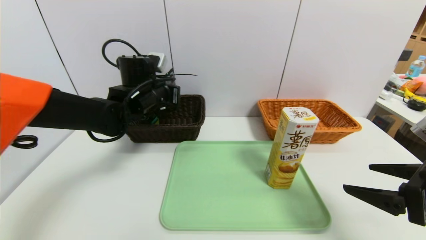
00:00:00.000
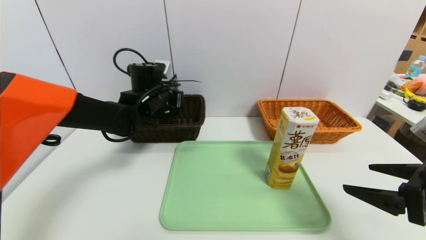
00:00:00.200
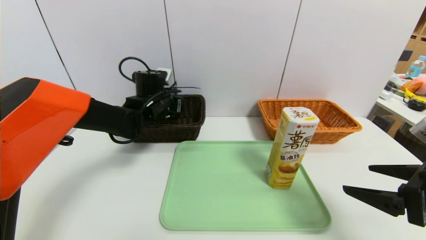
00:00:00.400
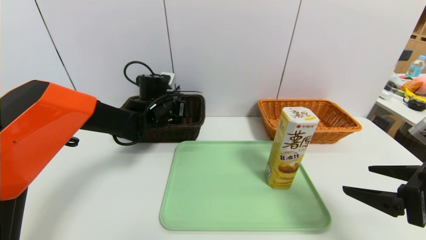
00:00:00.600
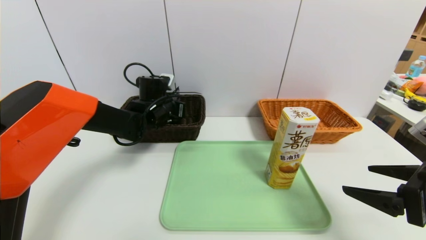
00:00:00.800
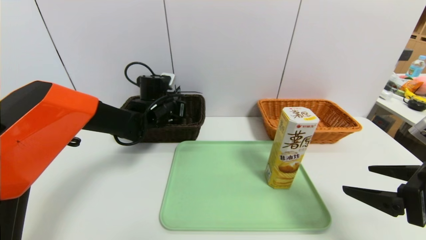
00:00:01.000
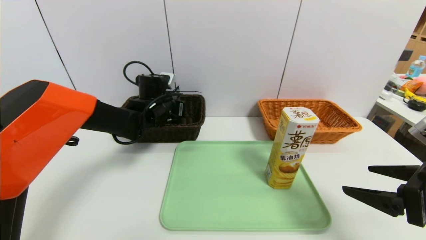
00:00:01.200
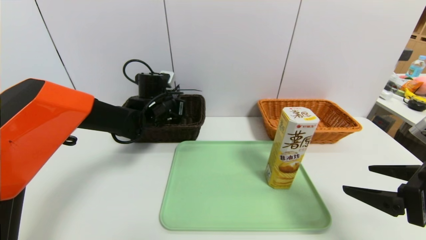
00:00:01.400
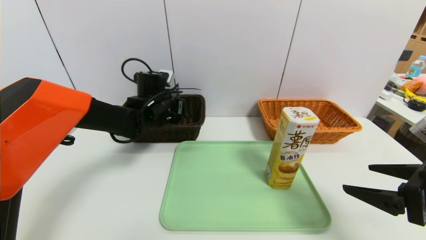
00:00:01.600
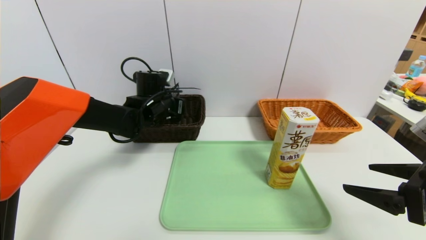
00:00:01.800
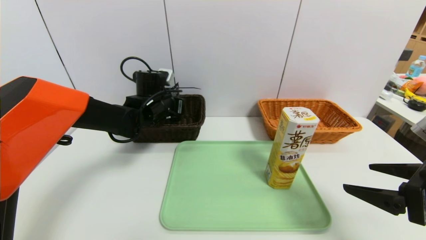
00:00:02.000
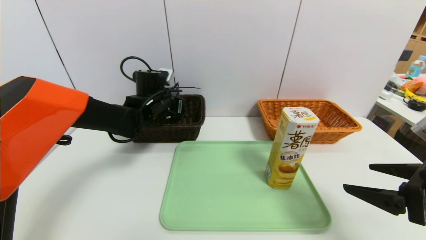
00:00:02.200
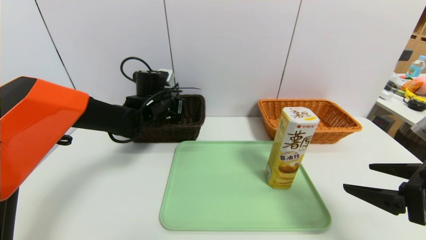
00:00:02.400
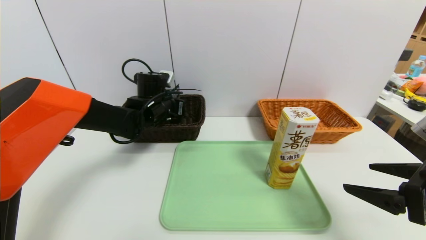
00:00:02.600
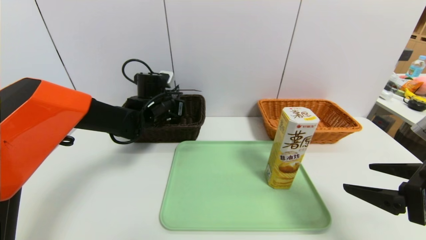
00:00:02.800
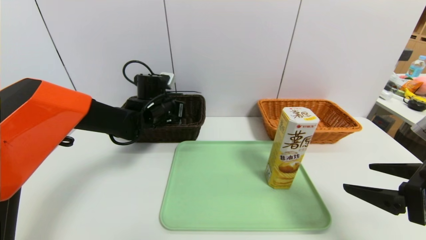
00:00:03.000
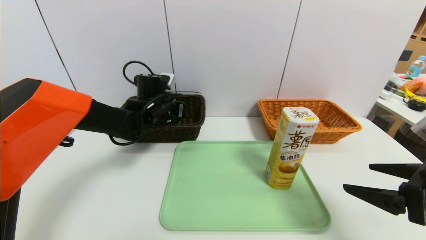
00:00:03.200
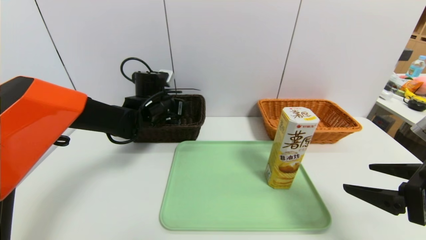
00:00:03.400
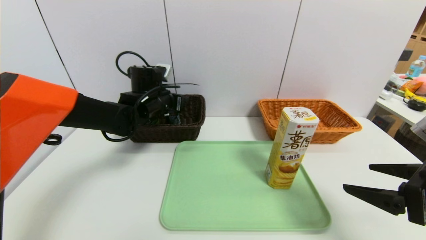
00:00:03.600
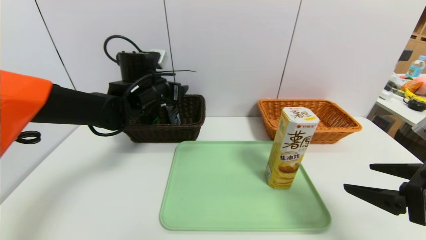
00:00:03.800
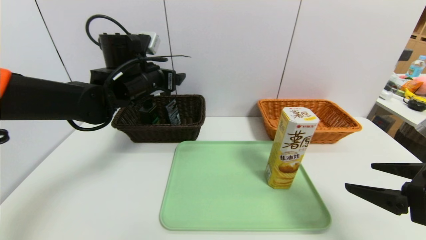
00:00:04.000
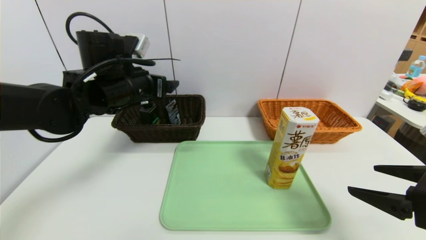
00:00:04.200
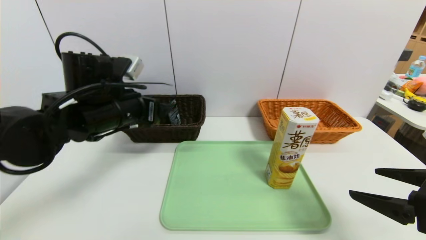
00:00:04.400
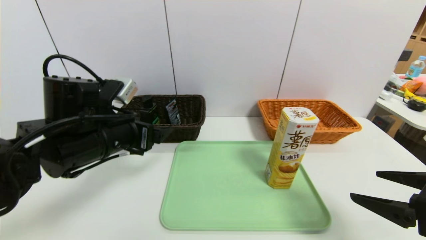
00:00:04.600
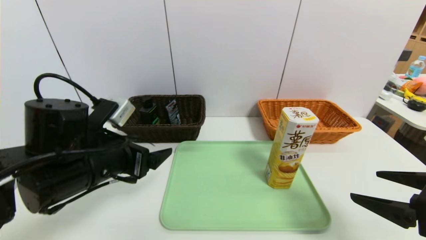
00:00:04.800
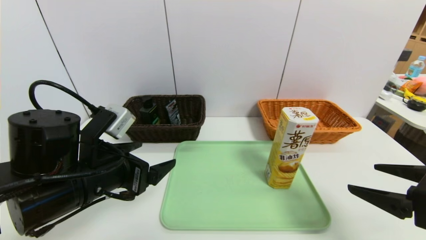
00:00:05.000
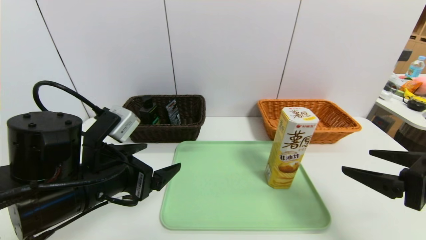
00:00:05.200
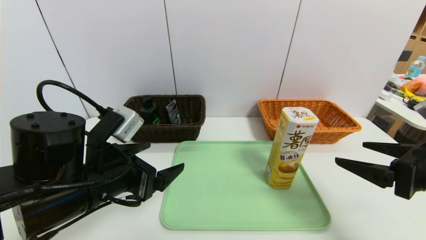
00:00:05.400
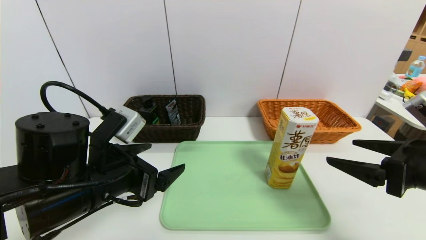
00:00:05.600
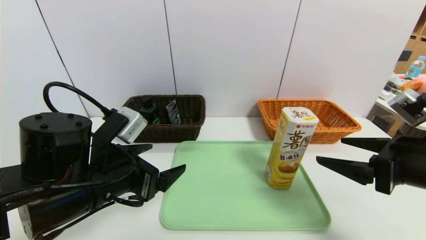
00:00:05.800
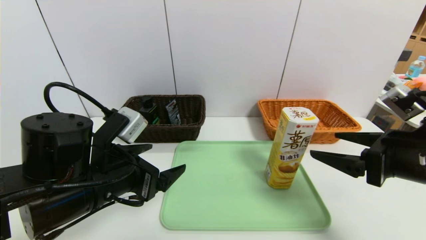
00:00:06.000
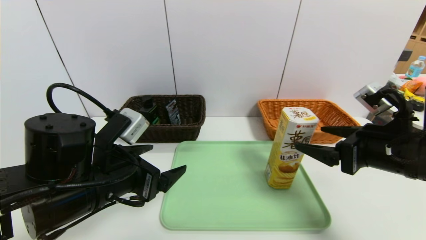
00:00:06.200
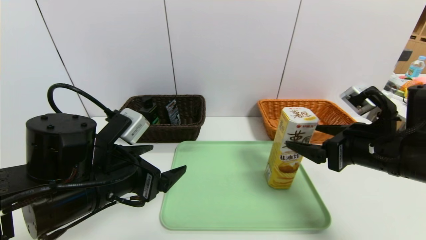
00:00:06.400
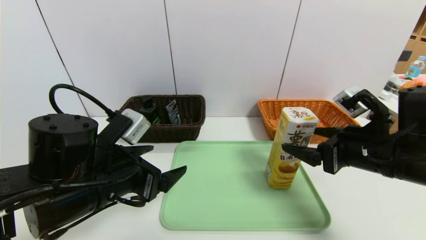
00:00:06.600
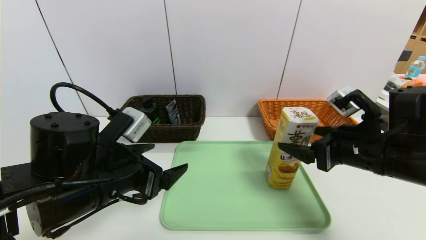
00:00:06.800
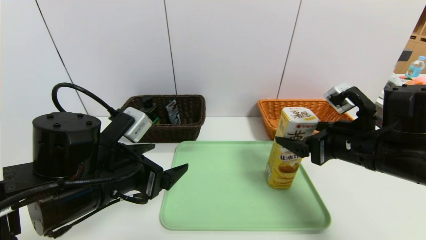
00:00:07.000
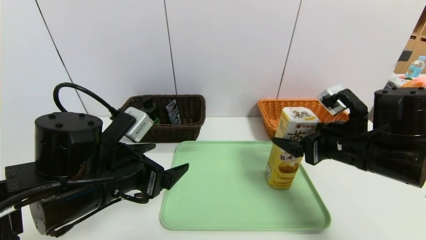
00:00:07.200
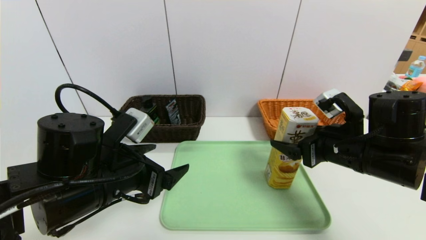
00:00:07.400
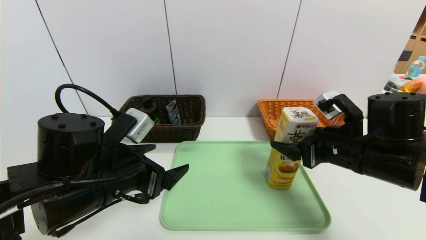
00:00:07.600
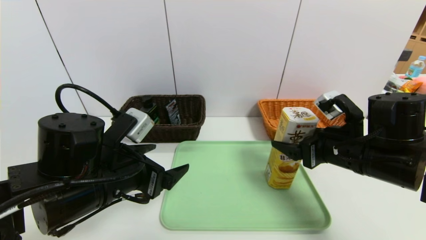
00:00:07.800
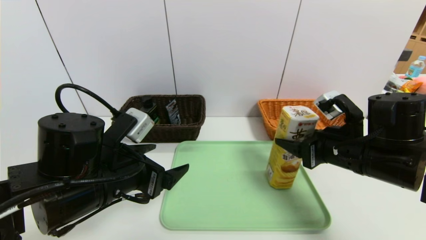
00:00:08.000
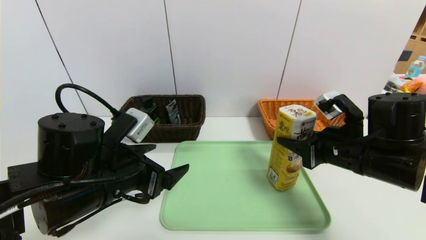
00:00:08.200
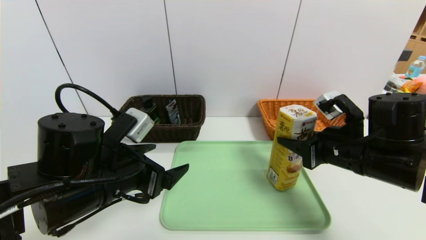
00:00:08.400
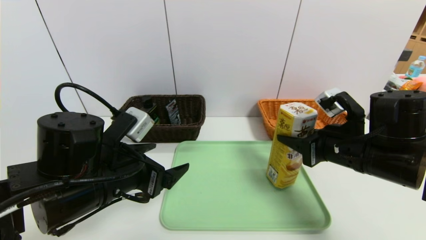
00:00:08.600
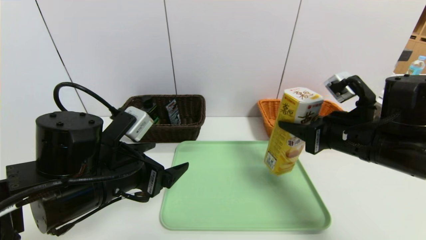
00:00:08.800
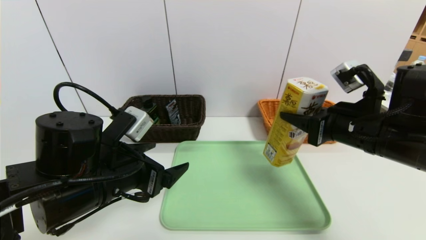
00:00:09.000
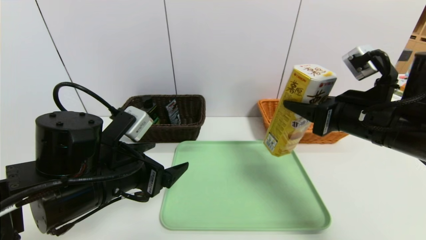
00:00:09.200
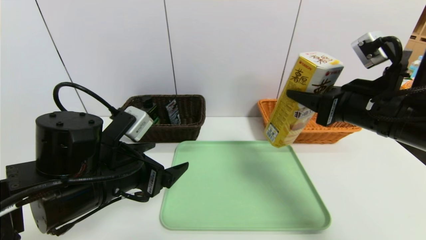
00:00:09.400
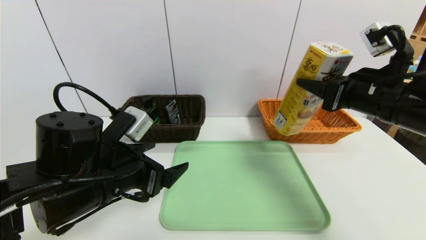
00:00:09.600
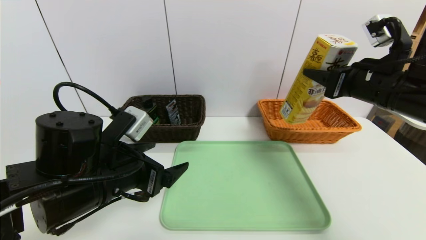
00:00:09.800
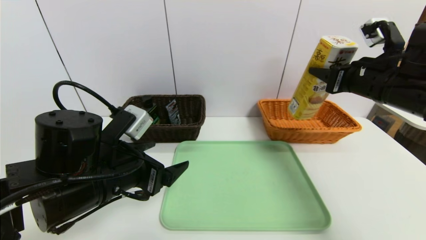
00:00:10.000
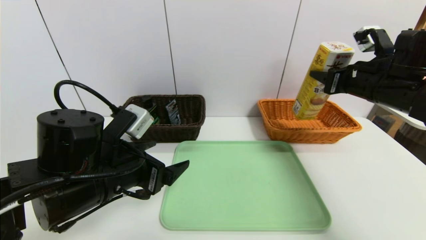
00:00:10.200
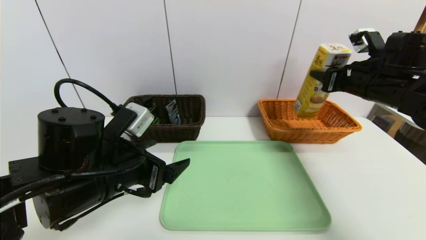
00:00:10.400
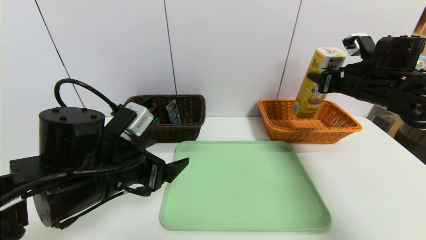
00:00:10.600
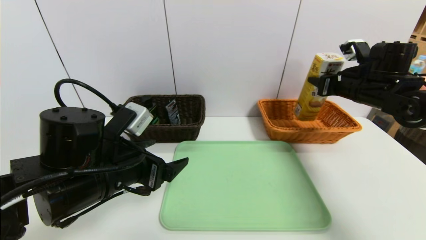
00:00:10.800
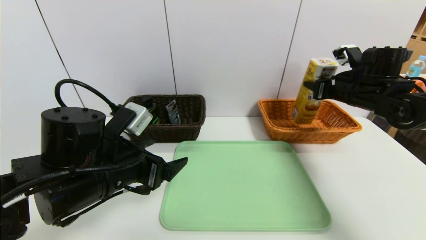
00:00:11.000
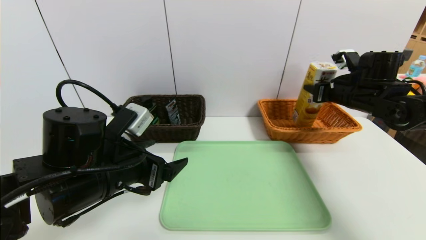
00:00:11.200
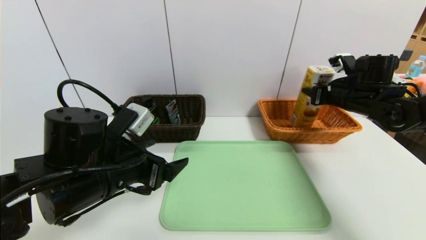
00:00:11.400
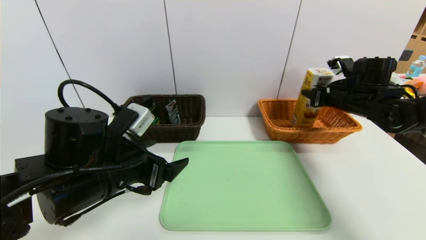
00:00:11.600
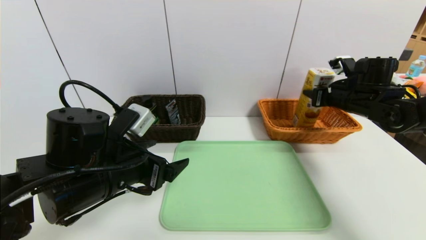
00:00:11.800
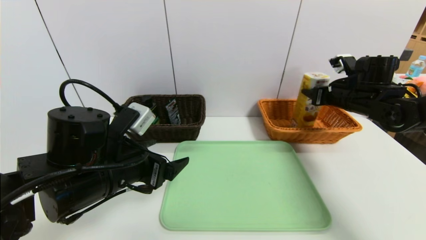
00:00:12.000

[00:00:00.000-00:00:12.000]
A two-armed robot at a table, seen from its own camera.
Task of the whole recording: place the food in the right basket with the right gripper, and place the non food items in the left basket with the left gripper.
Step, 00:00:00.000 to 00:00:03.400: Grasp the soft cleanser and put it in the left basket.
00:00:00.000 to 00:00:01.600: The left gripper shifts by approximately 5 cm.
00:00:01.600 to 00:00:03.000: Both grippers stay about where they are.
00:00:03.000 to 00:00:04.400: The left gripper is displaced backward and upward by approximately 15 cm, and opens its fingers.
00:00:04.400 to 00:00:06.000: The left gripper is displaced backward by approximately 10 cm, while the right gripper travels forward by approximately 5 cm.
00:00:06.000 to 00:00:07.600: The right gripper goes some 5 cm forward.
00:00:07.600 to 00:00:09.000: The right gripper closes.
00:00:09.000 to 00:00:10.400: The right gripper moves forward and to the right, some 15 cm.
00:00:10.400 to 00:00:12.000: The right gripper changes place by some 5 cm.

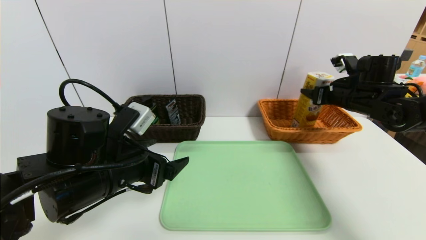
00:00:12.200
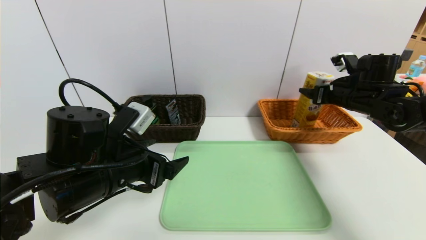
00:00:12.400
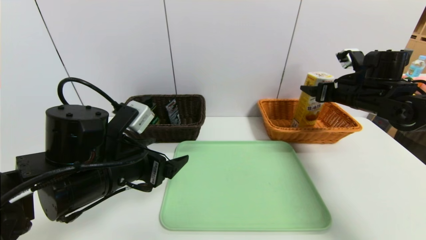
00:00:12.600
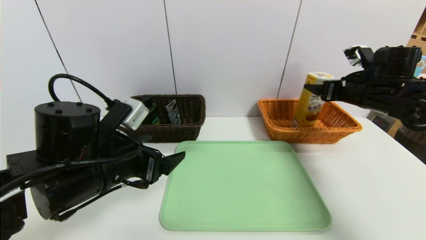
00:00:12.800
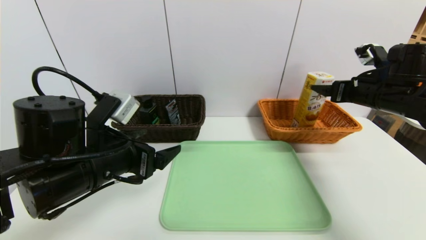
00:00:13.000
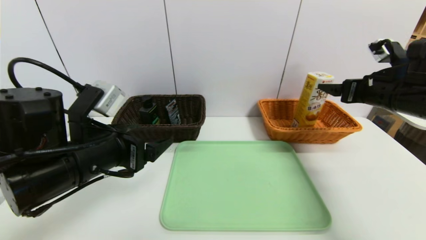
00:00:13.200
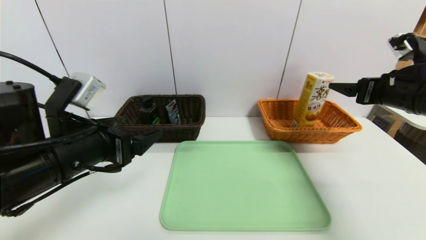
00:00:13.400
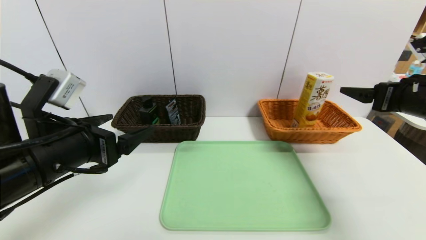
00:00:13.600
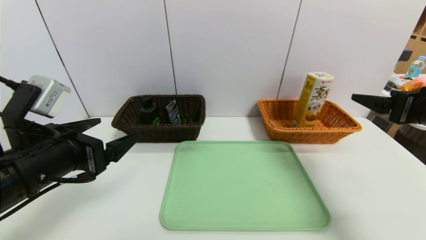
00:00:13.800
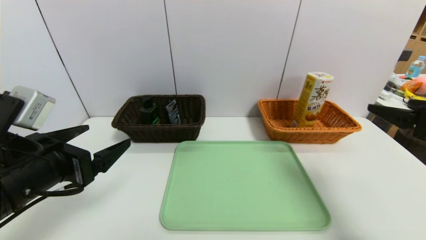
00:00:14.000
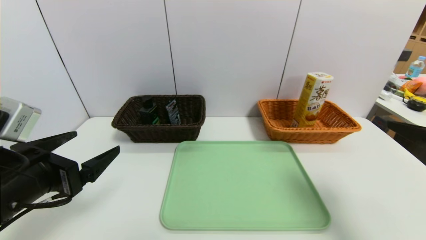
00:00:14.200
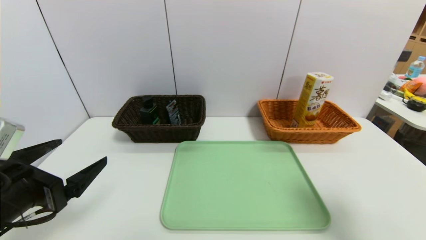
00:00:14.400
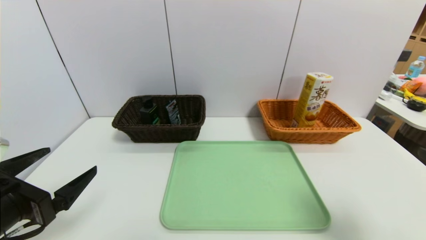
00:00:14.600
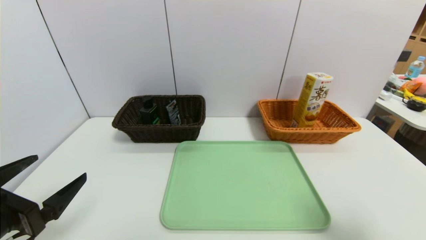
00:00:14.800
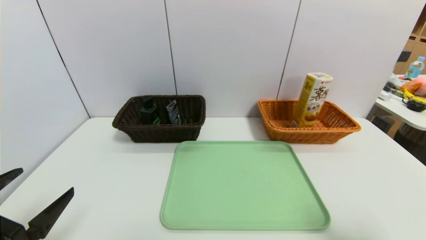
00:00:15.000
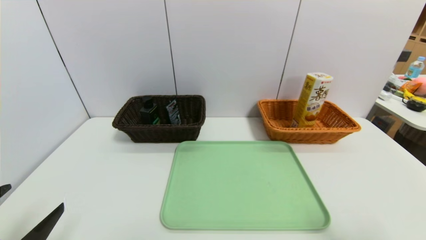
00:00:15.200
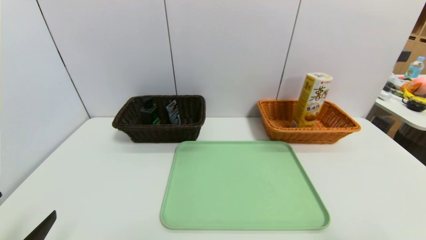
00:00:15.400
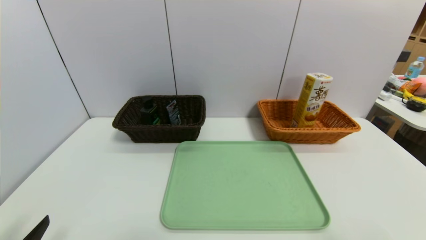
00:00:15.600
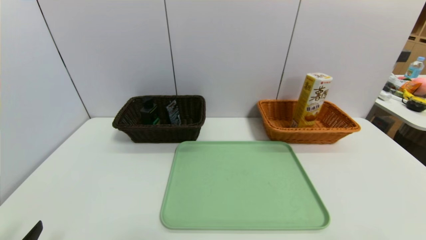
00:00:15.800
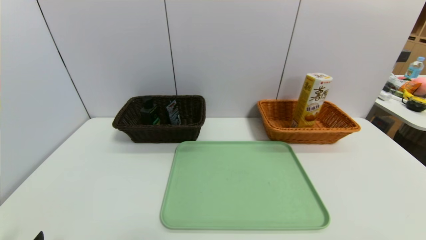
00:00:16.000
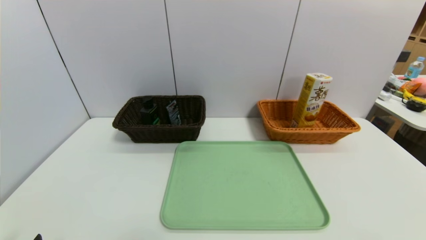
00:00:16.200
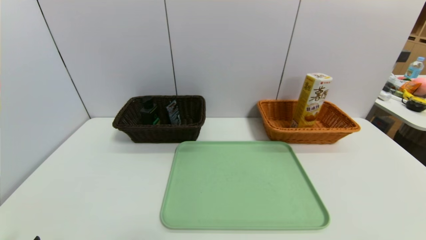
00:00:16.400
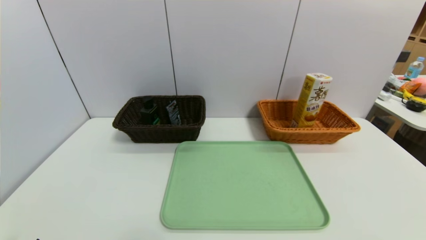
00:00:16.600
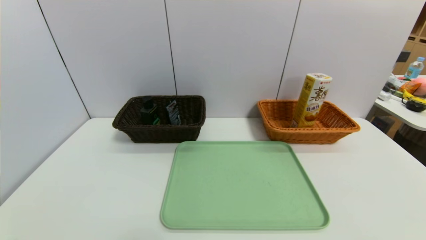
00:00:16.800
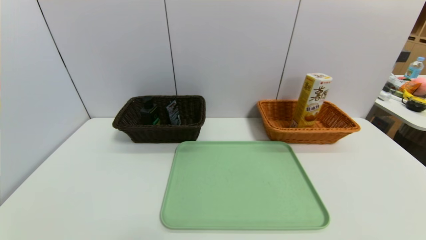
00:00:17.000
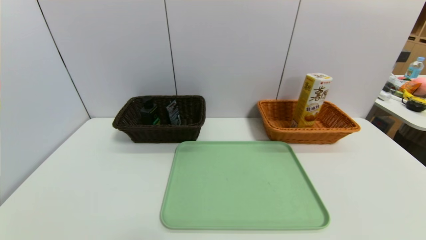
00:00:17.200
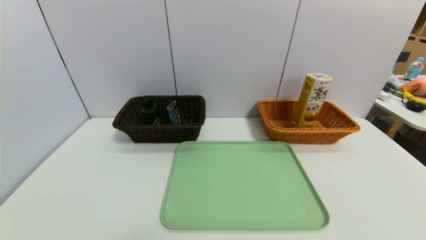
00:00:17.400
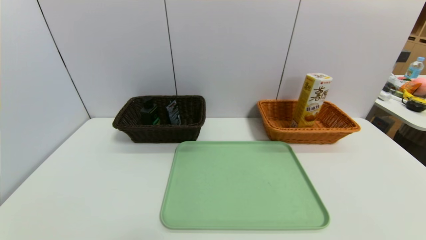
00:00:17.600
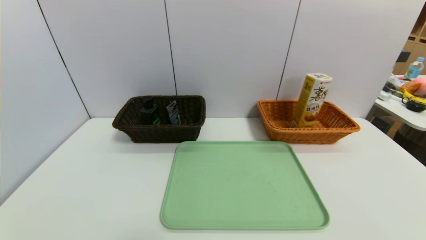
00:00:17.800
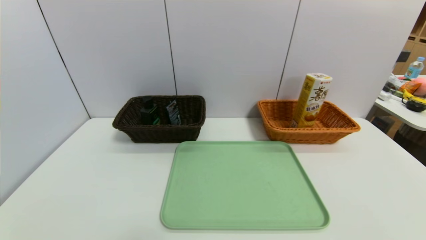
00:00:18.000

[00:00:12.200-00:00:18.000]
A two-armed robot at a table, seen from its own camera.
Task of the whole recording: place the food in the right basket with the right gripper, and place the non food items in the left basket with the left gripper.
00:00:12.200 to 00:00:13.600: The right gripper shifts roughly 15 cm backward, and opens up; the left gripper heads to the left, covering about 5 cm.
00:00:13.600 to 00:00:15.000: The left gripper moves backward, to the left and downward, roughly 15 cm. The right gripper is displaced backward by approximately 20 cm.
00:00:15.000 to 00:00:16.600: The left gripper moves downward and backward, some 10 cm, while the right gripper goes some 10 cm backward and downward.
